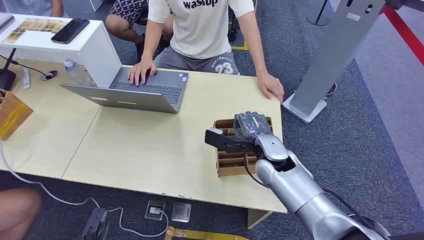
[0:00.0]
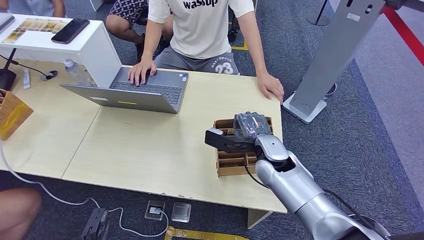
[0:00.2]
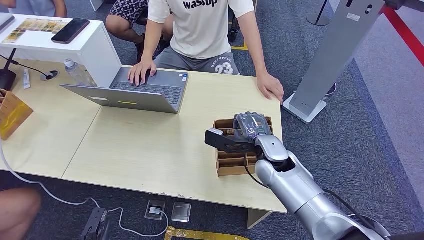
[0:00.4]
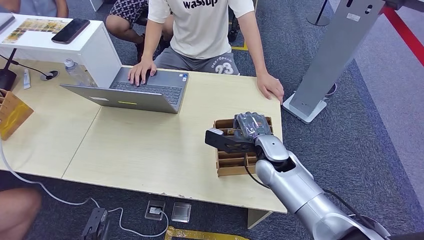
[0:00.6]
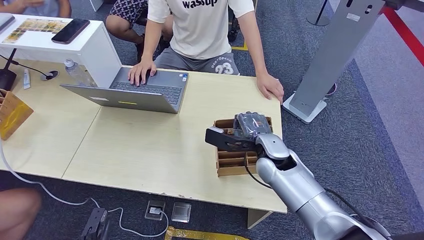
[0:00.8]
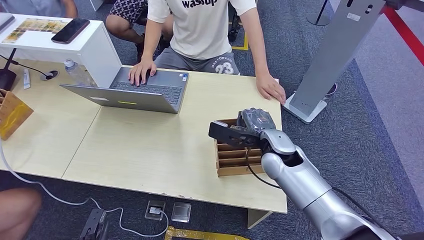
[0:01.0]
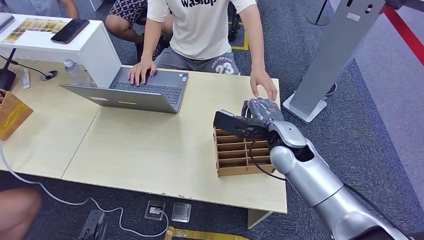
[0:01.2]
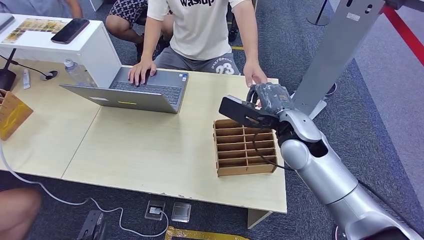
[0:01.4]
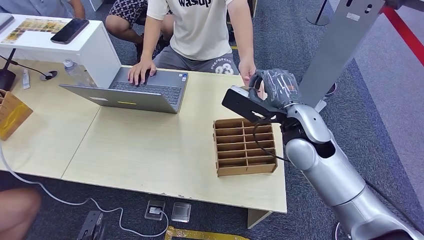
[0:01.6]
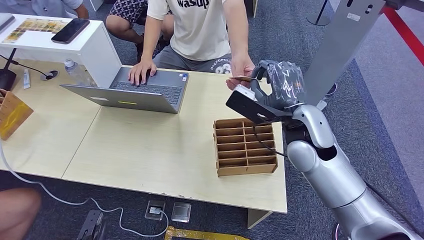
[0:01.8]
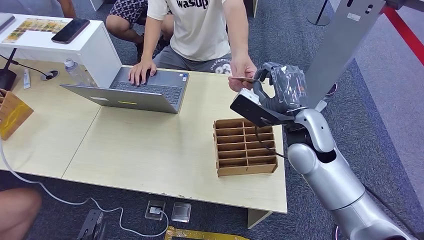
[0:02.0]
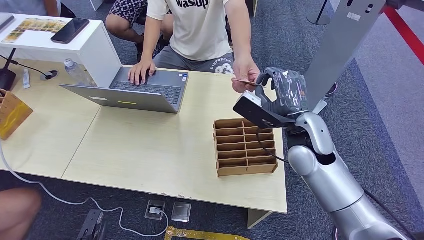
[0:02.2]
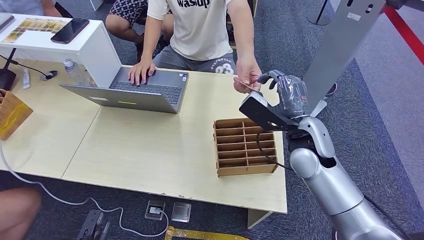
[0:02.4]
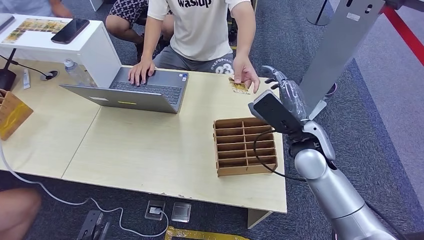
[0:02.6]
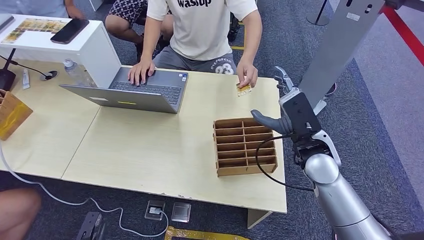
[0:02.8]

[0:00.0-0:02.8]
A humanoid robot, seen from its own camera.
Step, 0:00.0 to 0:01.2: Pick up the key card from the card box.
Step, 0:01.6 to 0:02.8: Hand the key card to the target.
0:01.4 to 0:02.8: The right hand shifts by roughly 5 cm.

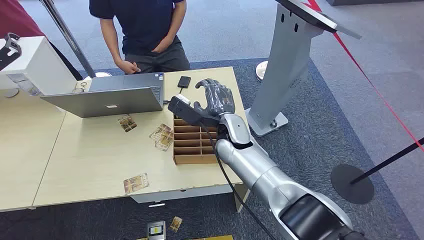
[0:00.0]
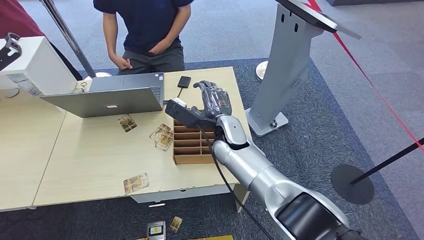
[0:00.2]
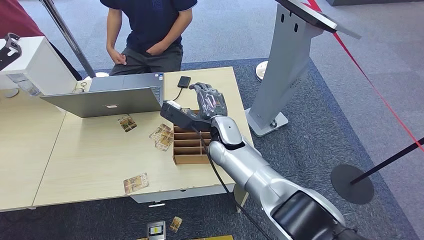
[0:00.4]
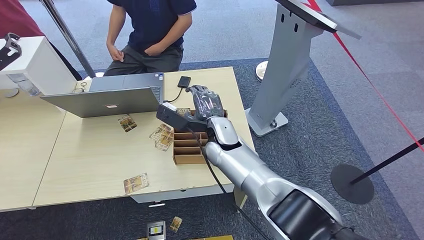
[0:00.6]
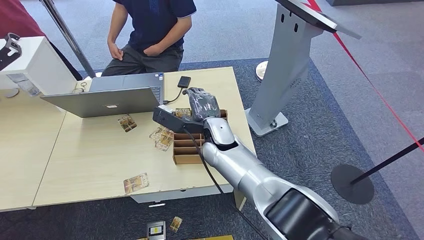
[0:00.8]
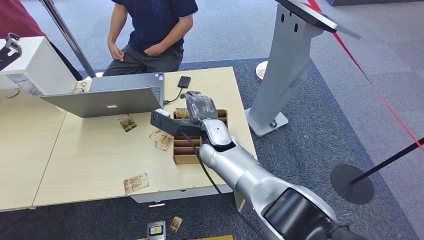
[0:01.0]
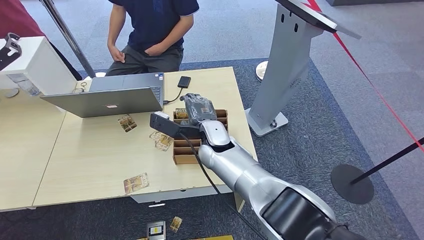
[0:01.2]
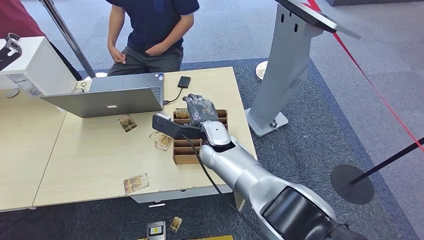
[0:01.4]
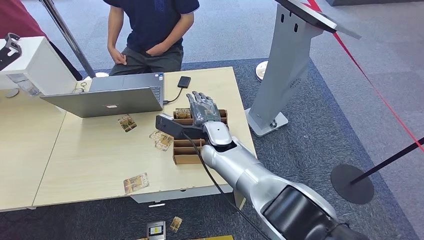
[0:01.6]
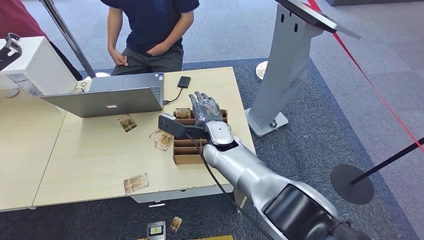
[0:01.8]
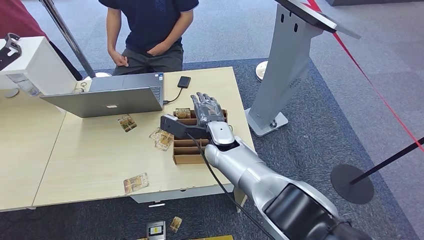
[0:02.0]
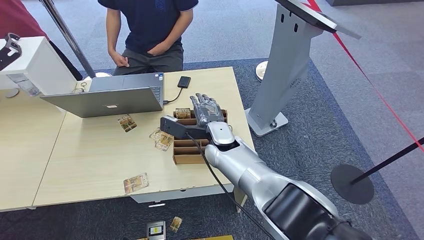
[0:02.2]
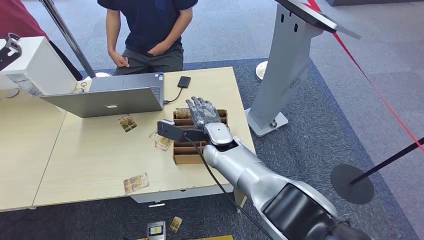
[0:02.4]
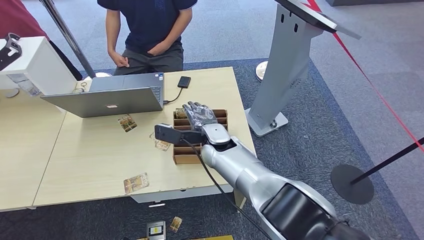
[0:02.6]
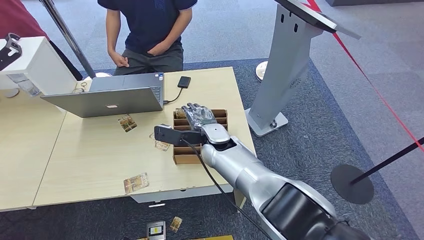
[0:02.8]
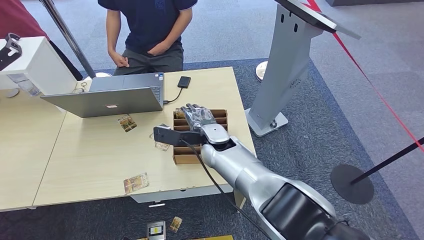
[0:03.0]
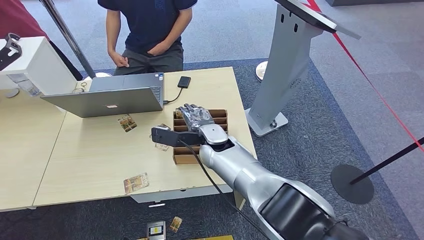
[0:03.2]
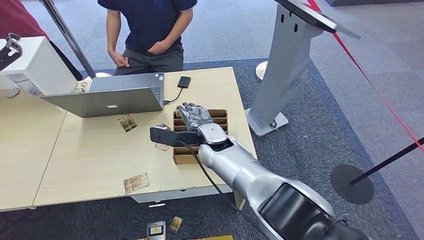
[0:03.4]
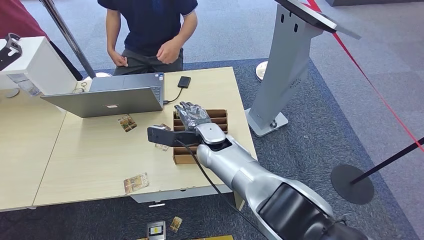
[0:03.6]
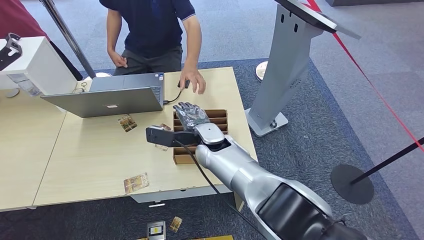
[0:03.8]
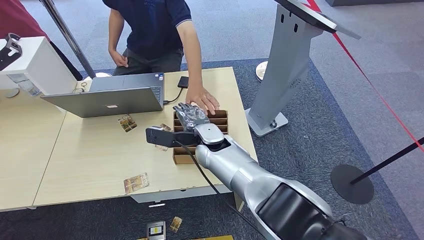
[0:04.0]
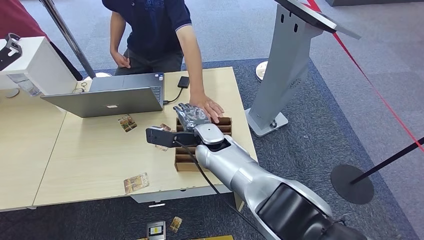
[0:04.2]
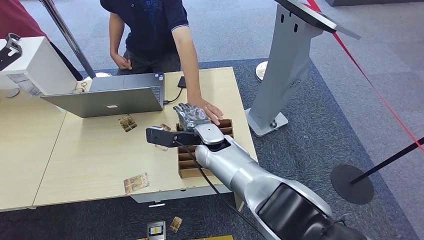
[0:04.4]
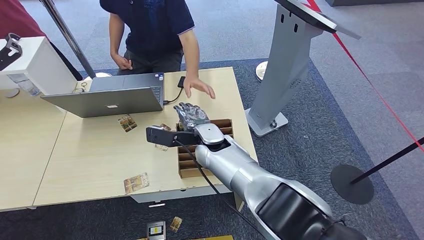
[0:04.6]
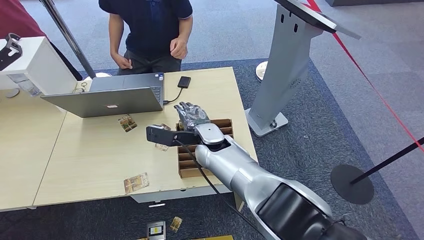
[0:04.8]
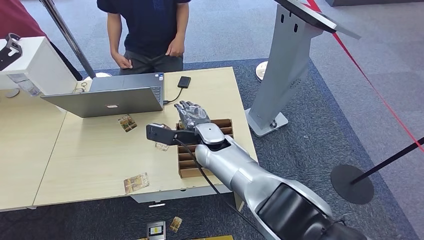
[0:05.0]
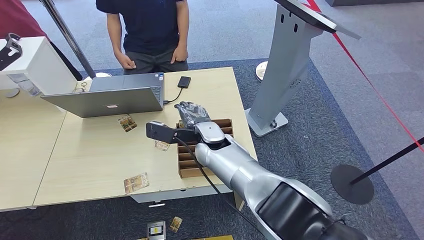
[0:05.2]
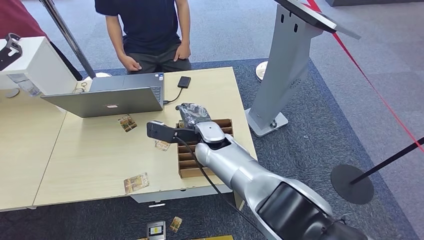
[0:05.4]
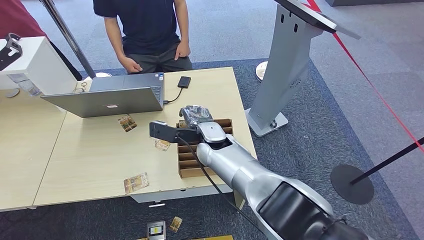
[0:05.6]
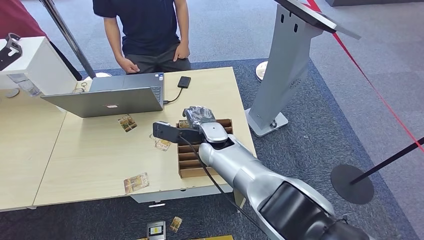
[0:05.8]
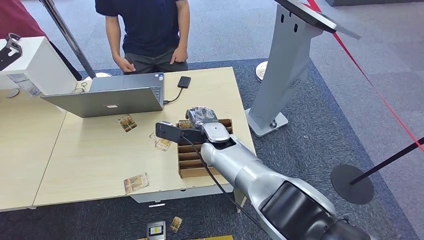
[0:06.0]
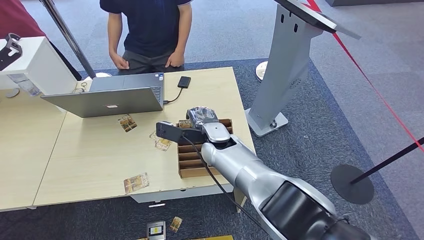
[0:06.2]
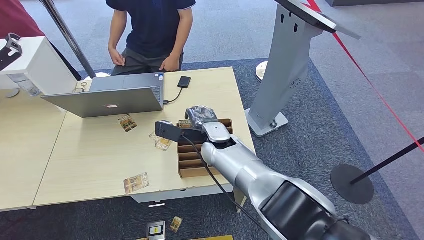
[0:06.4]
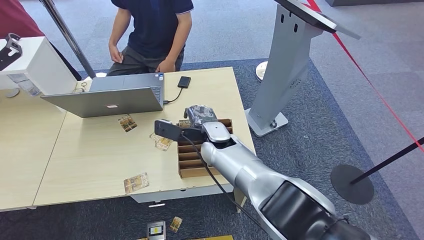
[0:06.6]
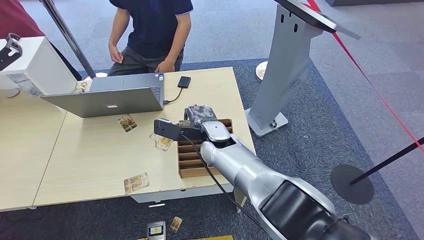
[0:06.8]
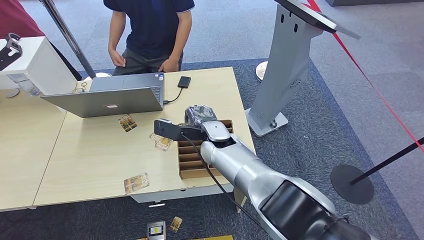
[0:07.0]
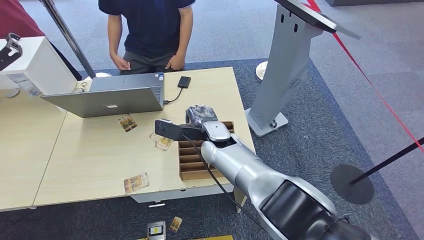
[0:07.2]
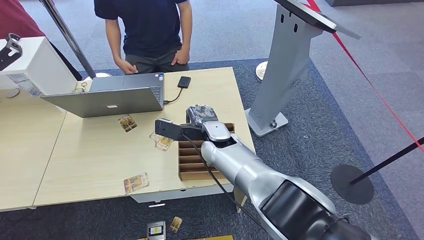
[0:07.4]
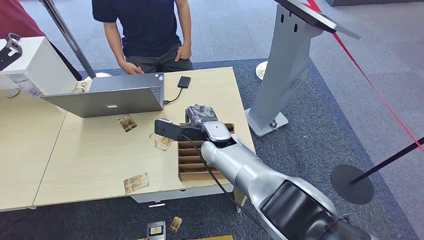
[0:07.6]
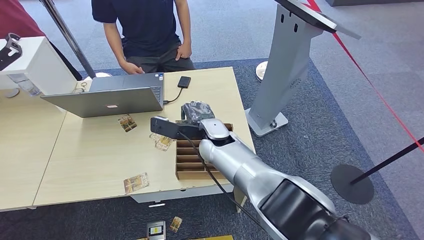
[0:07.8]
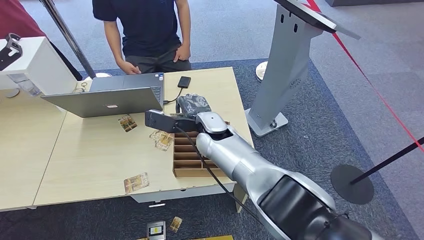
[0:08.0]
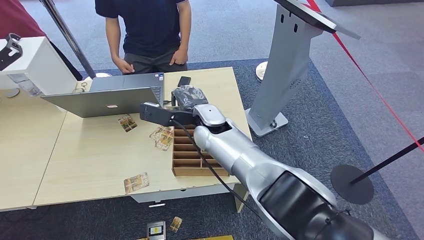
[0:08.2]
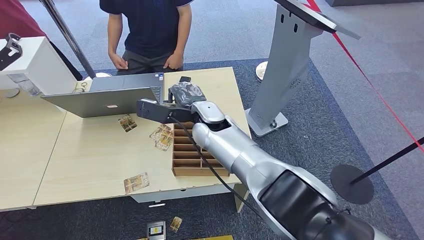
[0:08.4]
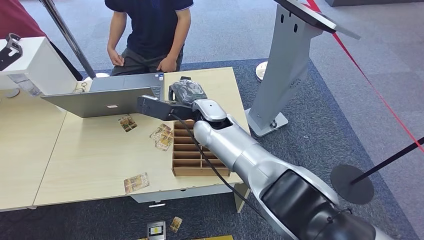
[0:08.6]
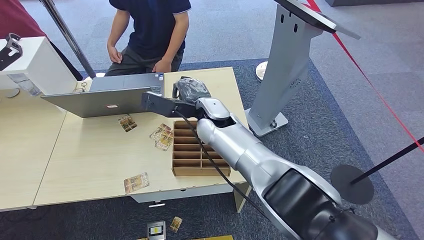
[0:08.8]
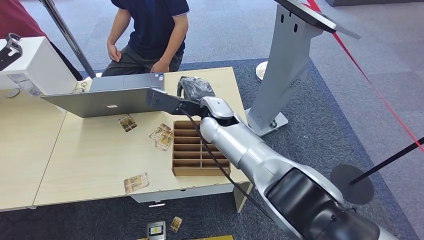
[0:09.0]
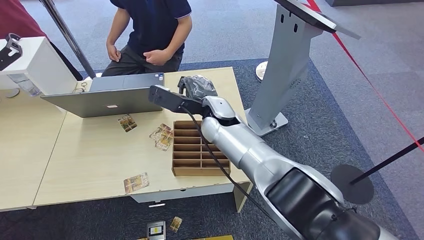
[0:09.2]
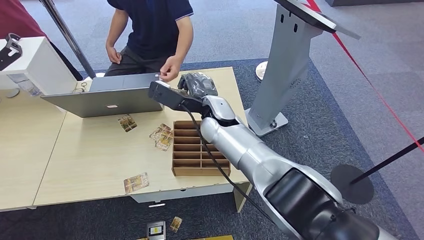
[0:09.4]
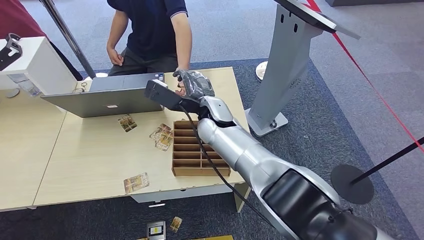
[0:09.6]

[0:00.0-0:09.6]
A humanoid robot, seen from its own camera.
Step, 0:00.0 to 0:08.6: Pick up the key card from the card box.
0:01.6 to 0:03.2: The hands make only small movements.
0:03.2 to 0:04.8: Neither hand changes place.
0:04.8 to 0:08.0: There are only small adjustments of the hands.
0:08.0 to 0:09.6: The hands stay close to where they were, moving slightly.

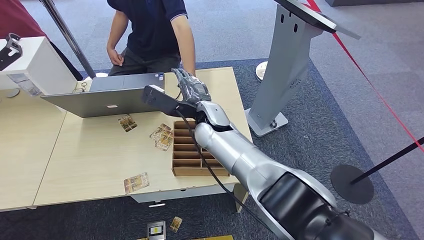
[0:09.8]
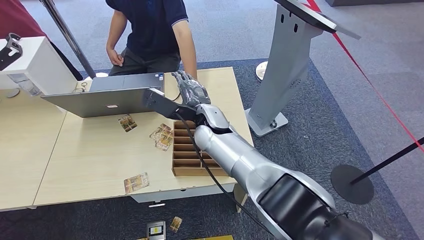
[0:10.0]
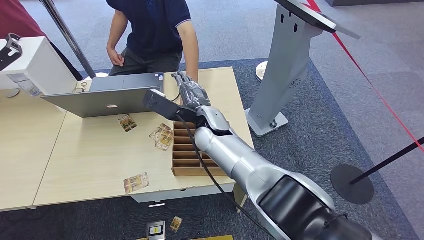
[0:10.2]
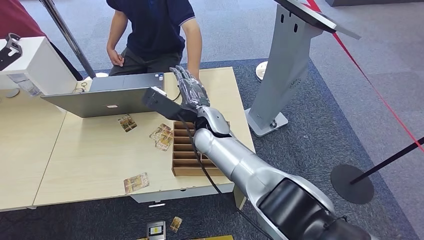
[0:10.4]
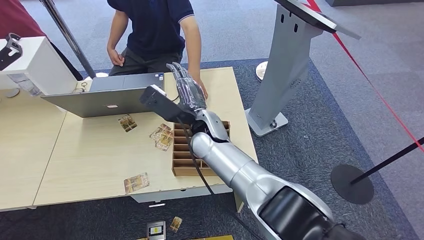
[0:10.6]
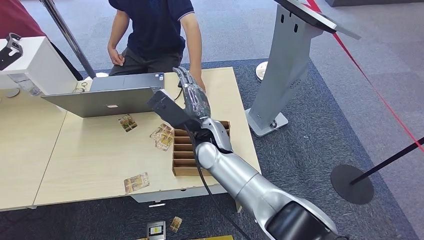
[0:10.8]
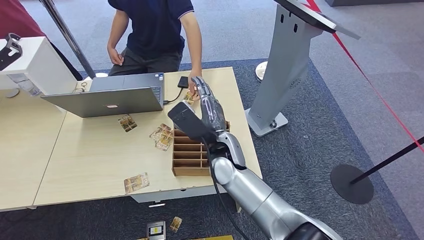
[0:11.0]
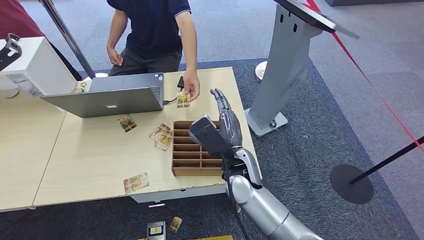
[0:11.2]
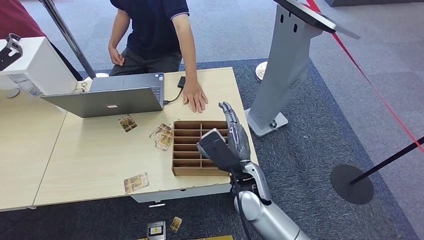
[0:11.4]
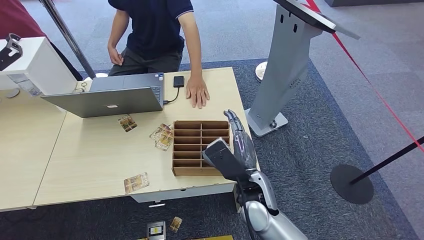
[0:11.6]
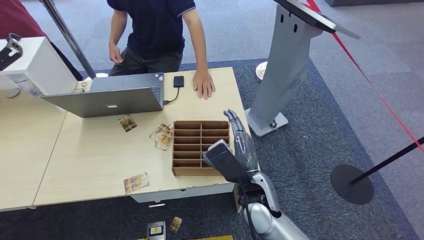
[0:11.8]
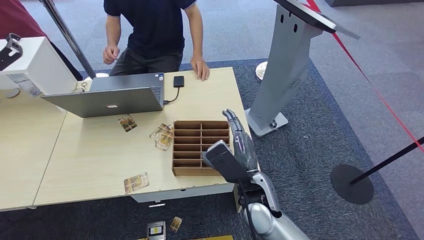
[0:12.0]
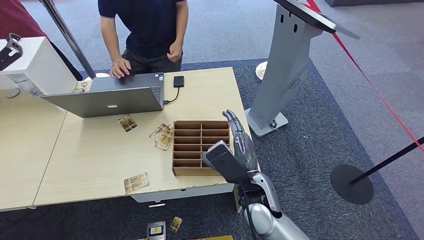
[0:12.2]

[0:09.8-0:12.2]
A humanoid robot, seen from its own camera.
Step, 0:09.8 to 0:12.2: Hand the key card to the target.
0:09.8 to 0:11.0: The right hand travels backward by some 5 cm.
0:11.0 to 0:12.2: The right hand travels backward and to the right by some 10 cm.
